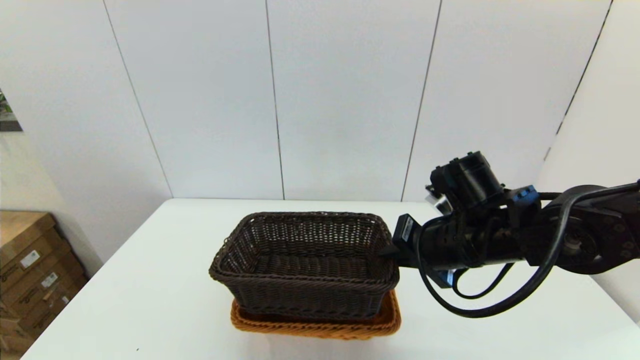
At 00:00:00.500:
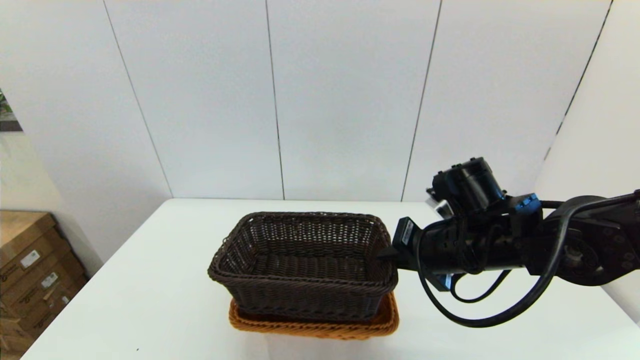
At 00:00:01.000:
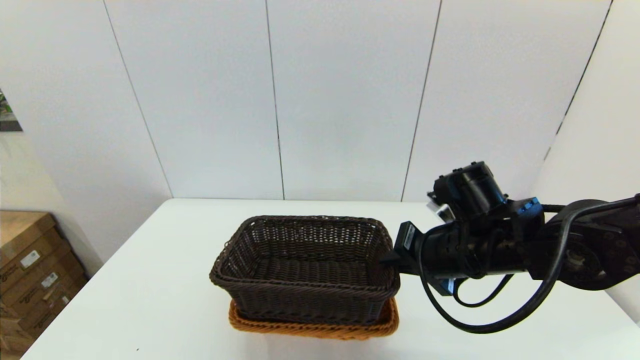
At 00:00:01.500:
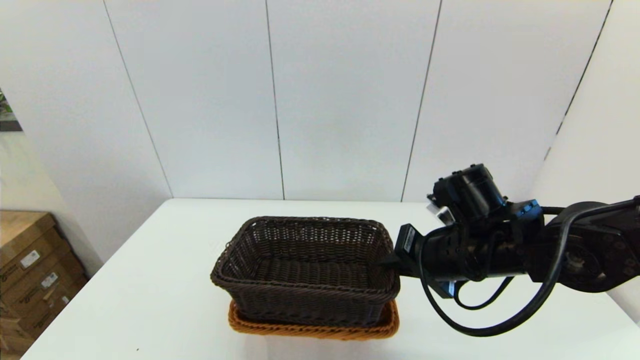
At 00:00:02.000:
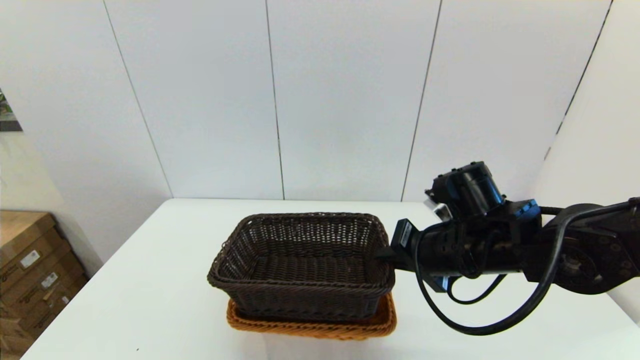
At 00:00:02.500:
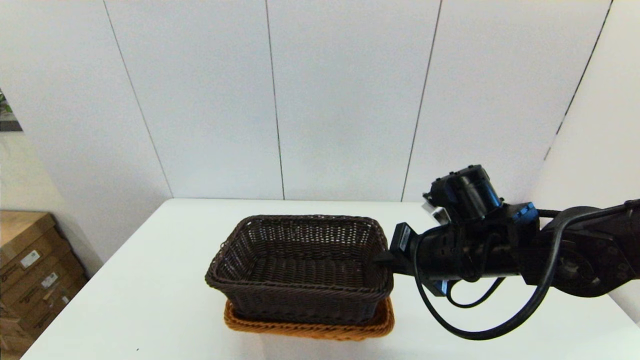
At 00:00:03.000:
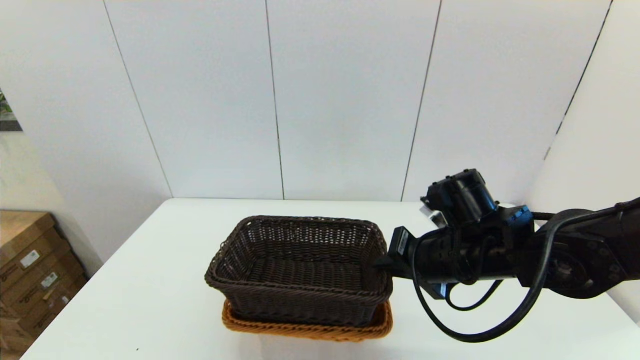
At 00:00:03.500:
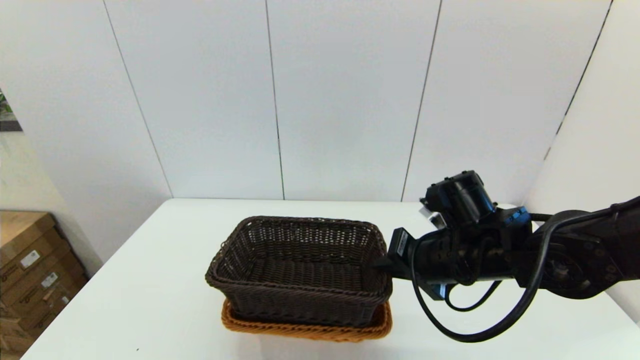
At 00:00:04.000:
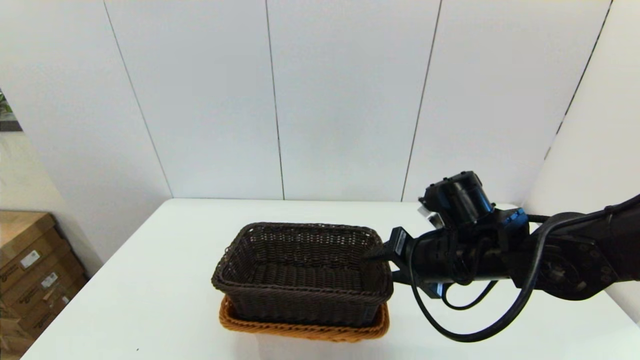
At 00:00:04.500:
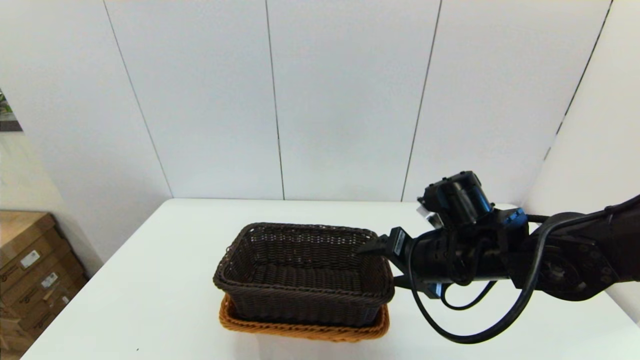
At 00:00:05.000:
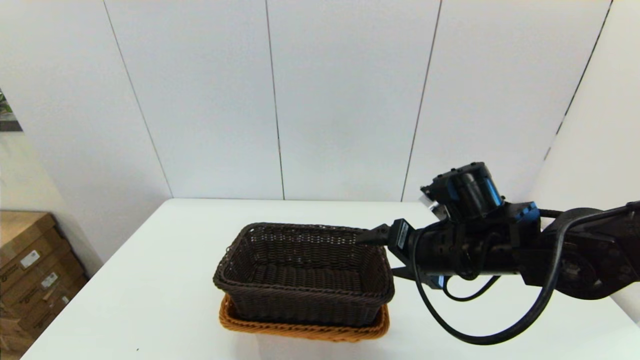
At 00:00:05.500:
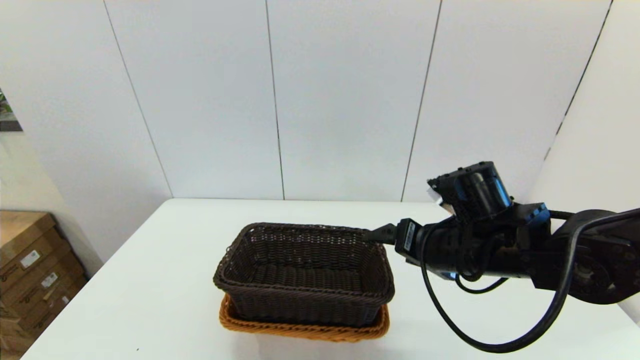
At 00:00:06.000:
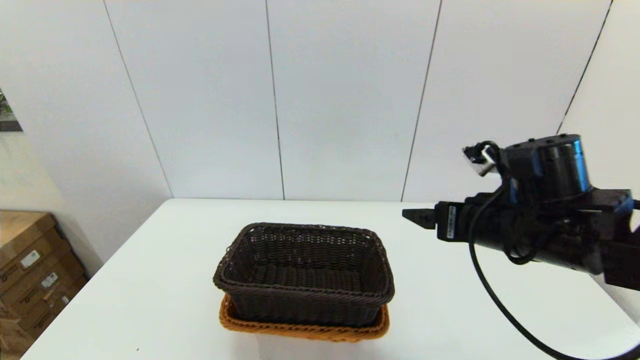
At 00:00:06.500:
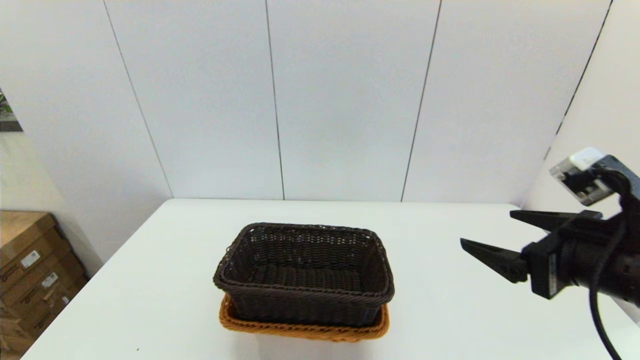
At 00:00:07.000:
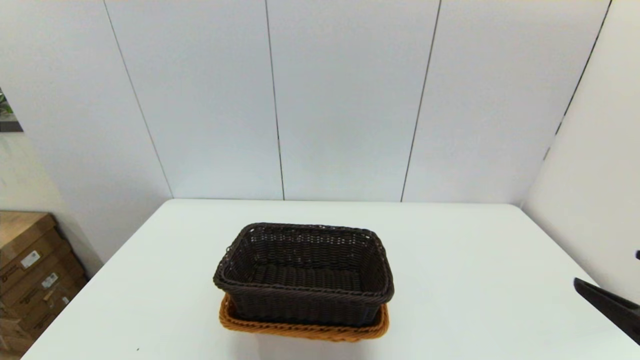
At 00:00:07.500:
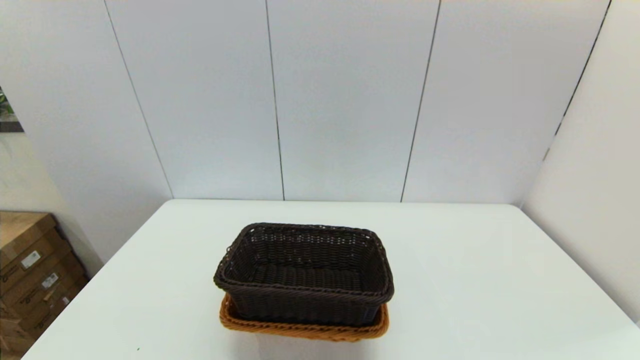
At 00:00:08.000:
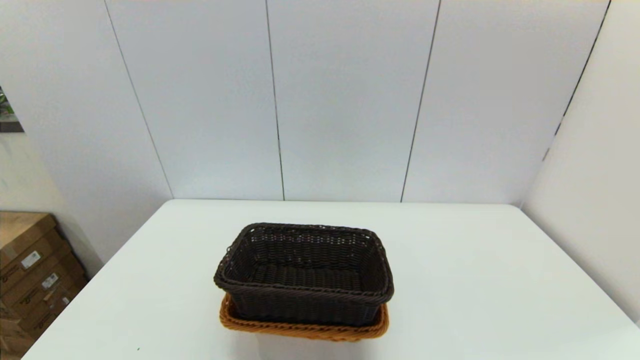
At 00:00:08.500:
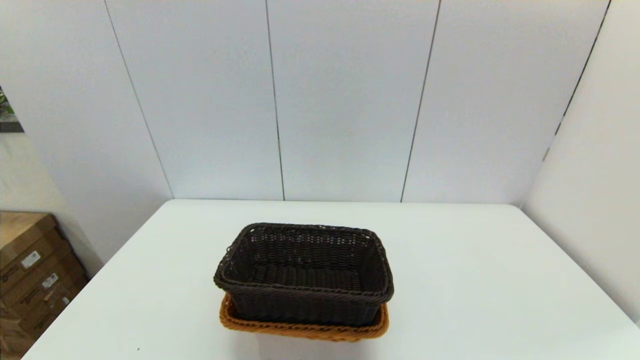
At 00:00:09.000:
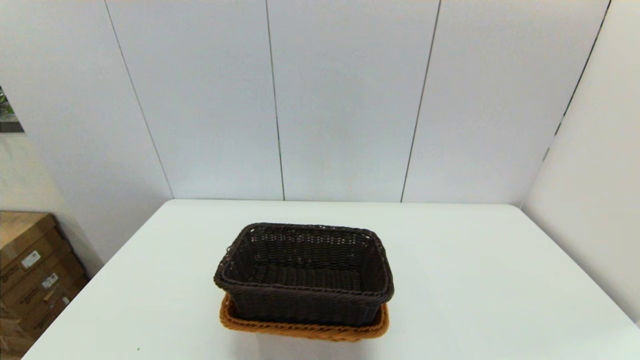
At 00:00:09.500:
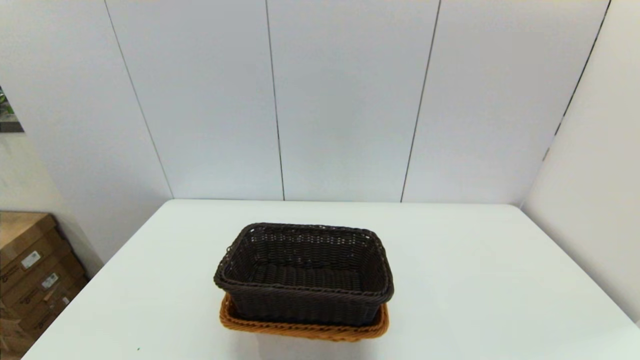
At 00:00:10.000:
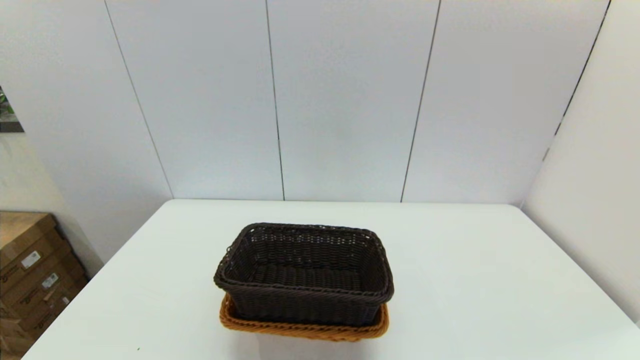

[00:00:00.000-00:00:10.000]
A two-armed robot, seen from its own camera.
Task of the whole recording: stack a basket on top of another basket.
Step, 00:00:00.000 to 00:00:04.500: Place the dark basket into the light color basket with the right gripper.
00:00:00.000 to 00:00:02.000: The grippers move only a little.
00:00:02.000 to 00:00:04.000: The right gripper opens up.
00:00:04.000 to 00:00:06.000: The right gripper goes approximately 10 cm upward and to the right, and opens its fingers.
00:00:06.000 to 00:00:08.000: The right gripper shifts roughly 30 cm backward and to the right.

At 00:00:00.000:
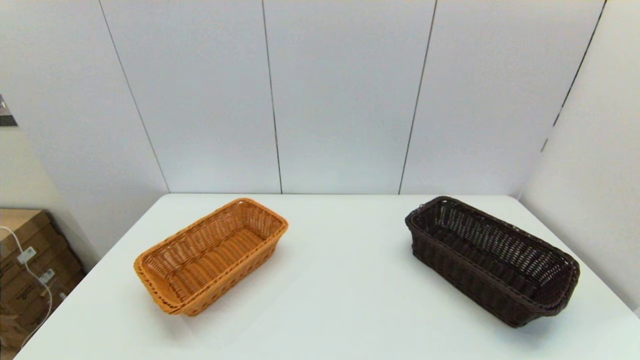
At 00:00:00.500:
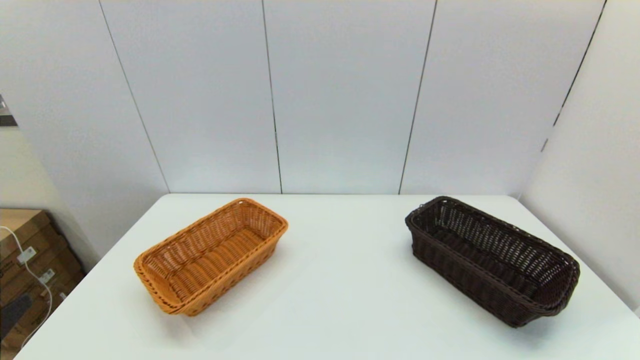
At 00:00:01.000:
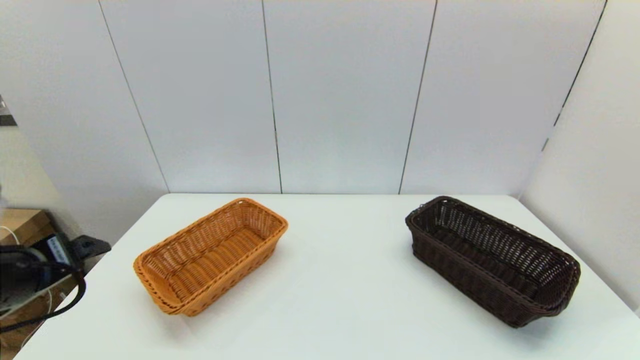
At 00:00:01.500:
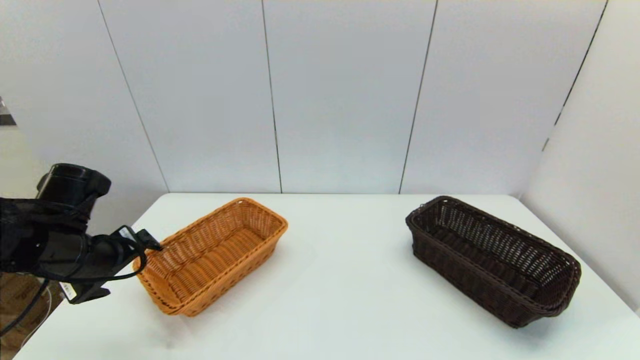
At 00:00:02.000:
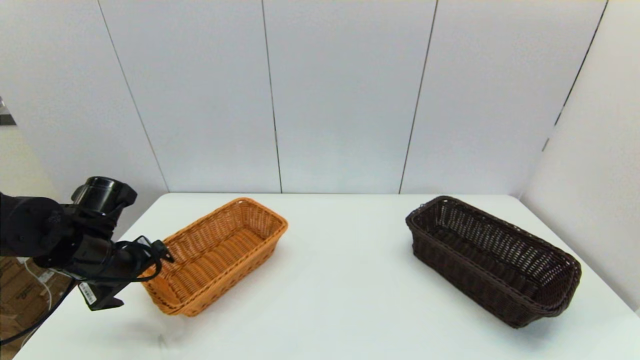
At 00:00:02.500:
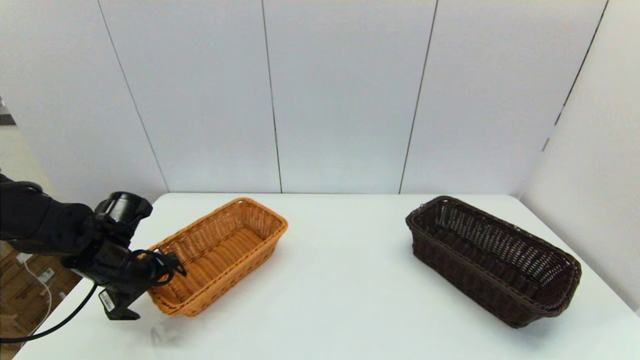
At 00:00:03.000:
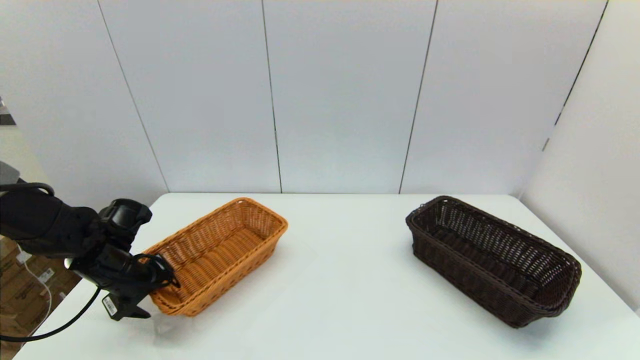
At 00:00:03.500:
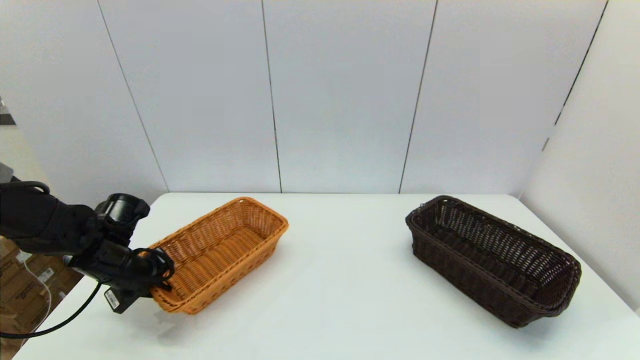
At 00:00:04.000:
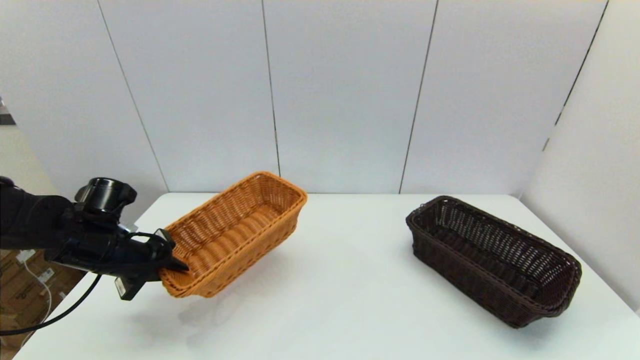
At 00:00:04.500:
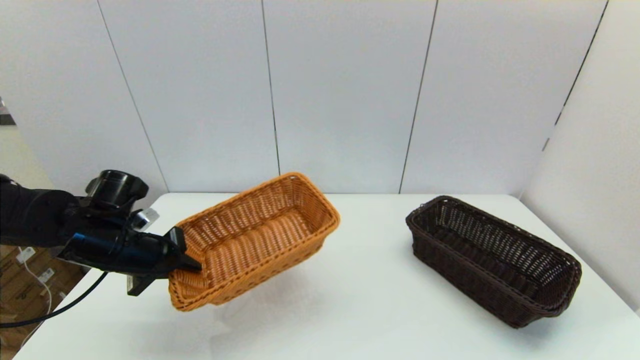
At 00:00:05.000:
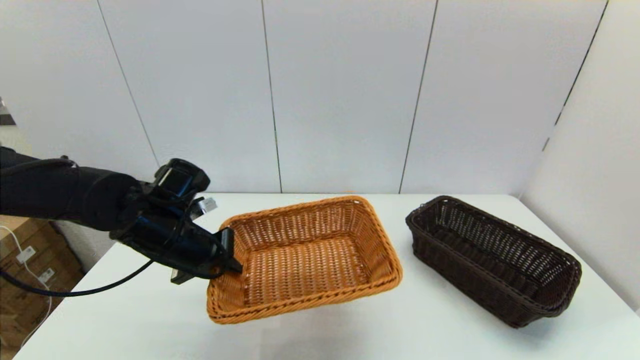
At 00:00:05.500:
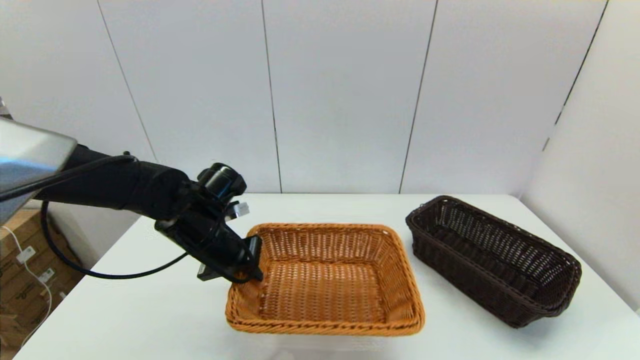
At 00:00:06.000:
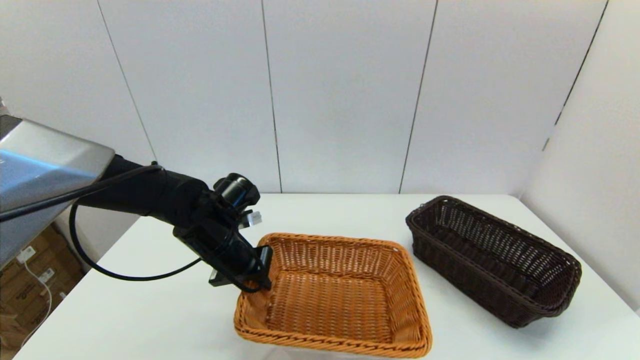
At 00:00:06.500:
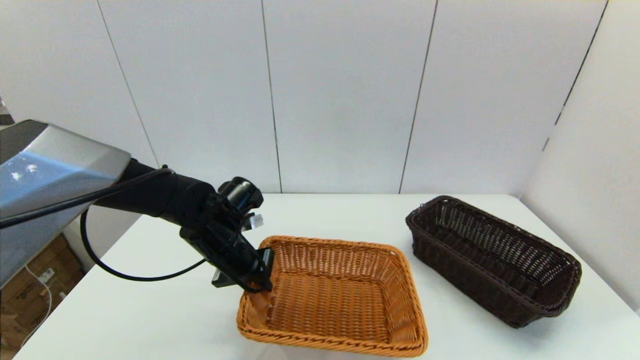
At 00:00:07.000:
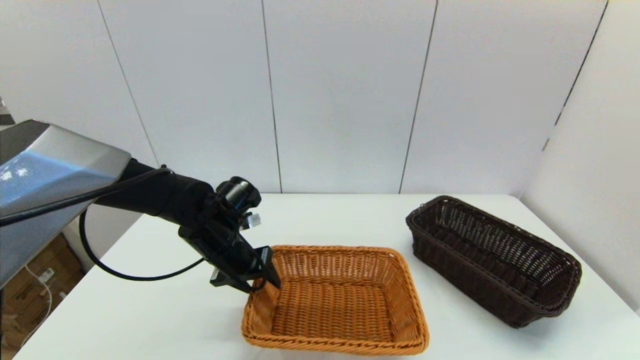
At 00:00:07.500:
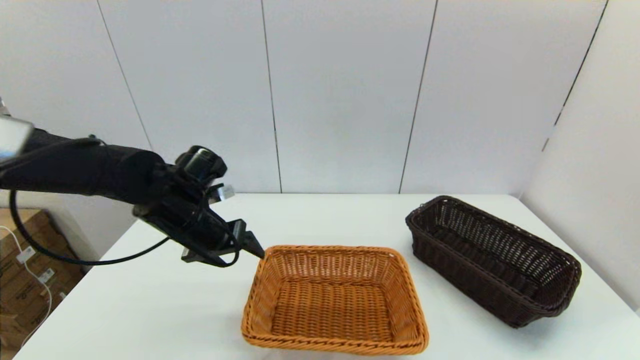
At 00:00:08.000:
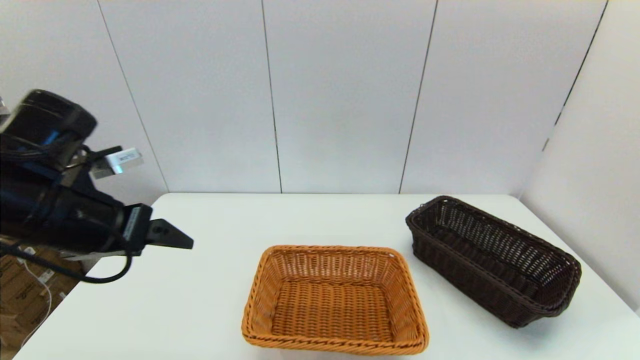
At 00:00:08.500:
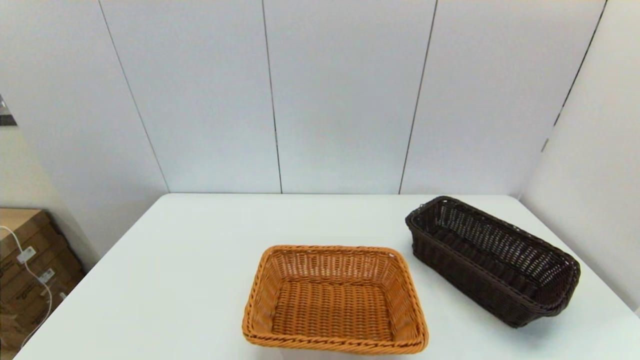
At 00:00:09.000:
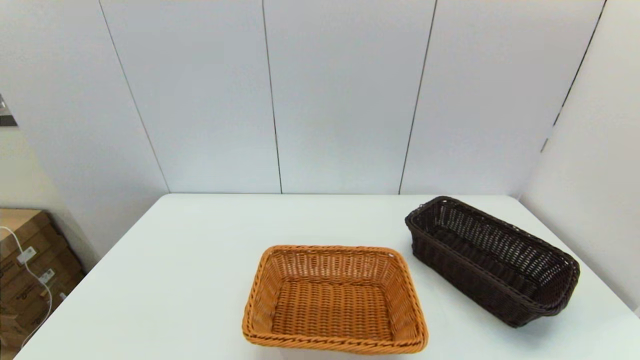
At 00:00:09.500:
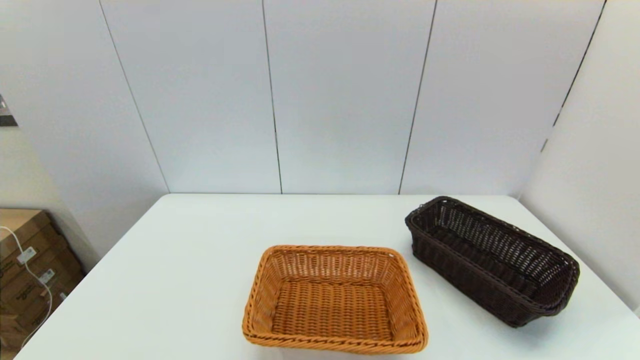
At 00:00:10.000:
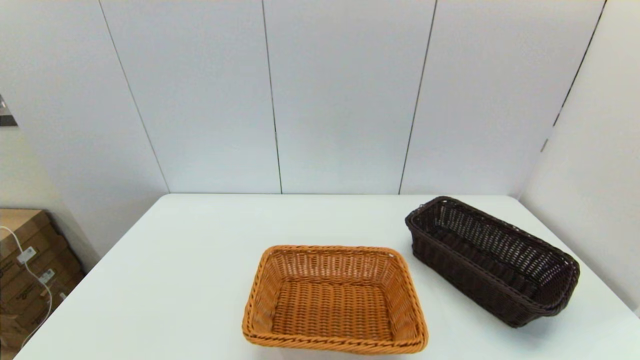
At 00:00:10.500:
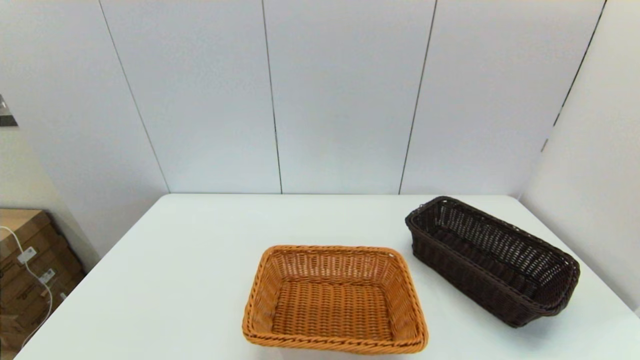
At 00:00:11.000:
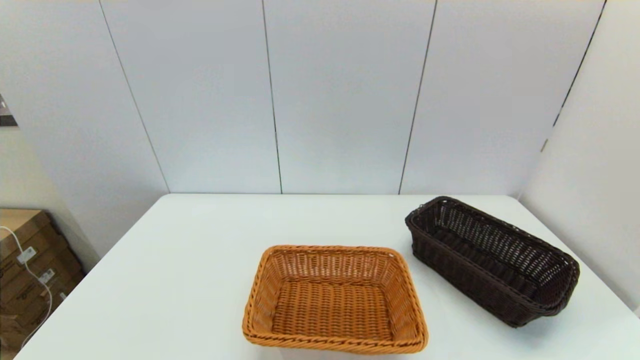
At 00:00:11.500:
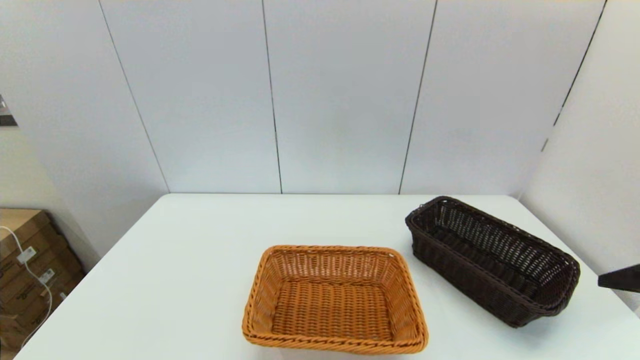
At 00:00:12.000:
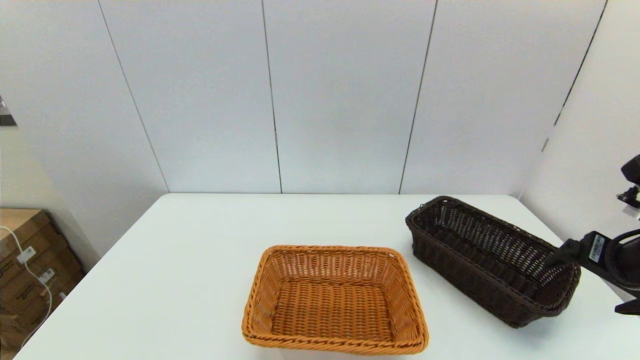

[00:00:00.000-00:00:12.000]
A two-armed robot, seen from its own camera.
Task of the whole recording: stack a basket on top of another basket.
Step, 00:00:00.000 to 00:00:03.000: Grasp the light basket with the left gripper.
Step, 00:00:03.500 to 00:00:07.500: Place the light basket on the middle of the table with the left gripper.
00:00:00.000 to 00:00:02.000: The left gripper heads forward, covering about 30 cm.
00:00:02.000 to 00:00:04.000: The left gripper closes its fingers.
00:00:04.000 to 00:00:06.000: The left gripper goes some 15 cm to the right.
00:00:06.000 to 00:00:08.000: The left gripper is displaced upward, backward and to the left by about 20 cm, and opens up.
00:00:08.000 to 00:00:10.000: The left gripper shifts some 30 cm backward and downward.
00:00:10.000 to 00:00:12.000: The right gripper moves forward and upward, about 25 cm.
